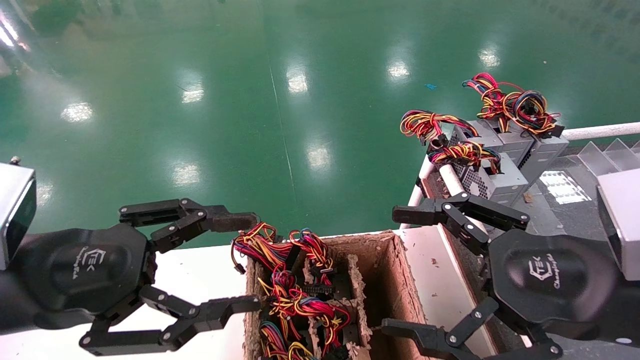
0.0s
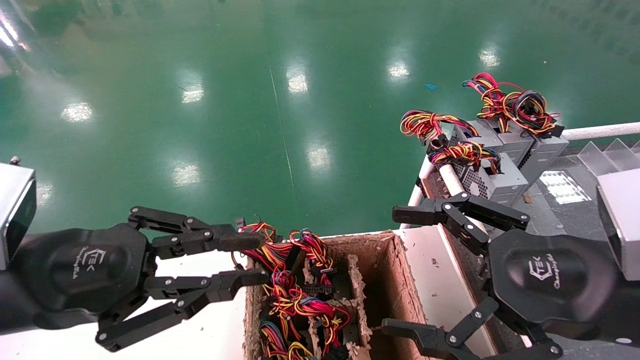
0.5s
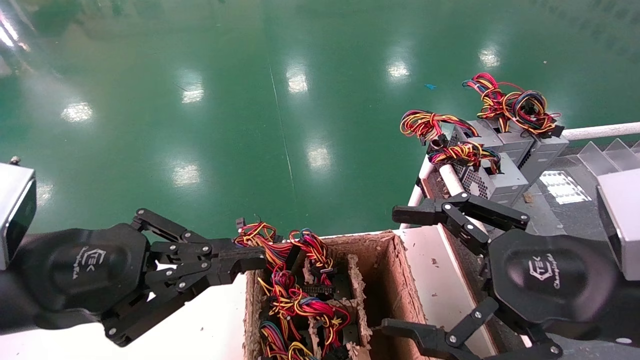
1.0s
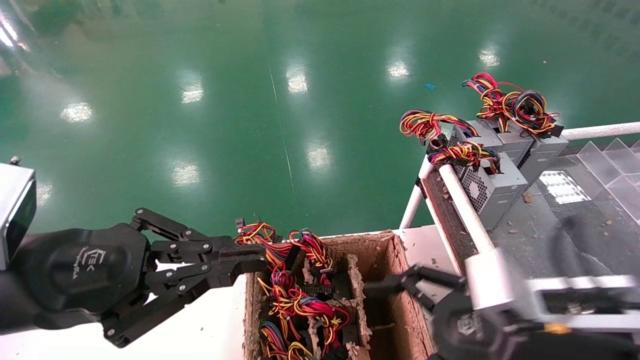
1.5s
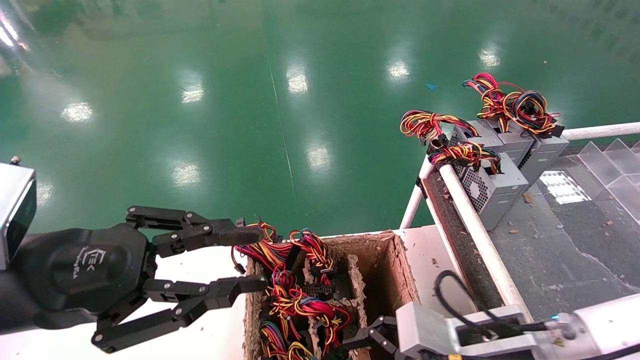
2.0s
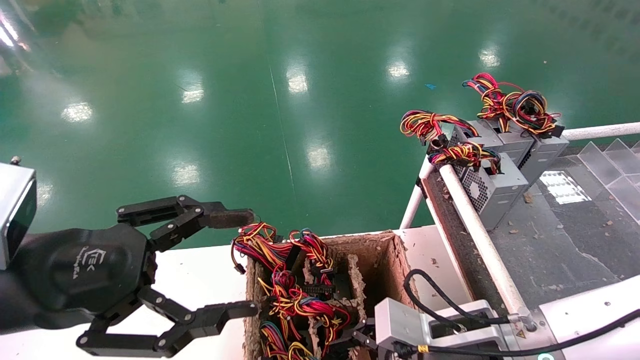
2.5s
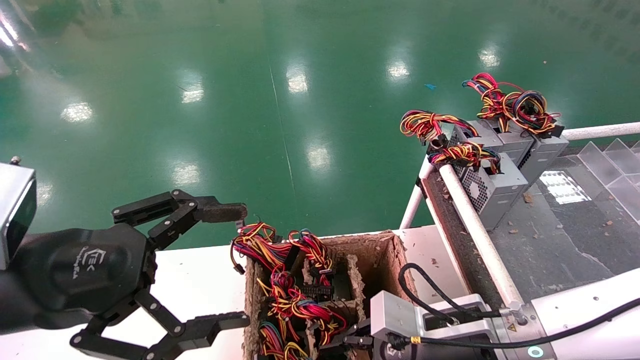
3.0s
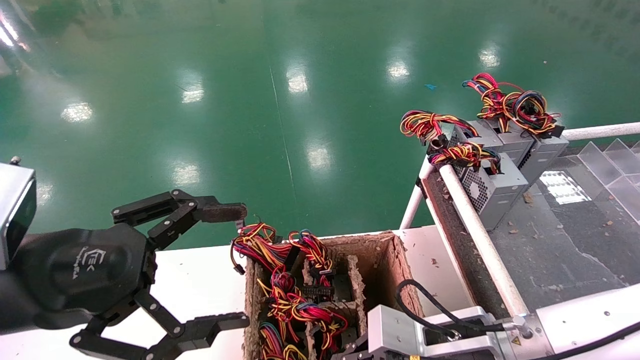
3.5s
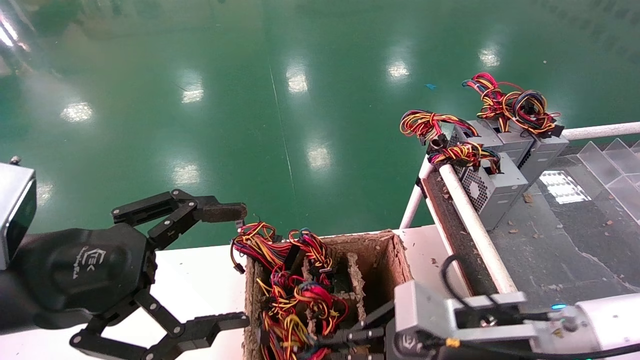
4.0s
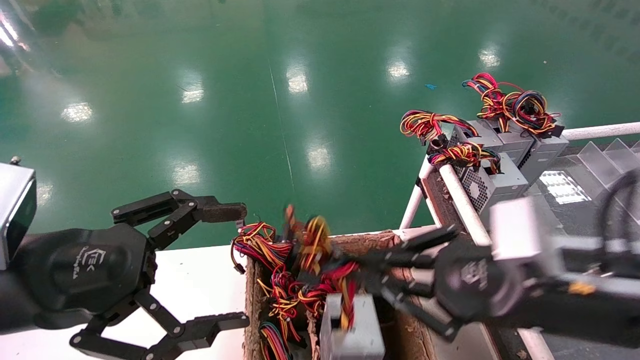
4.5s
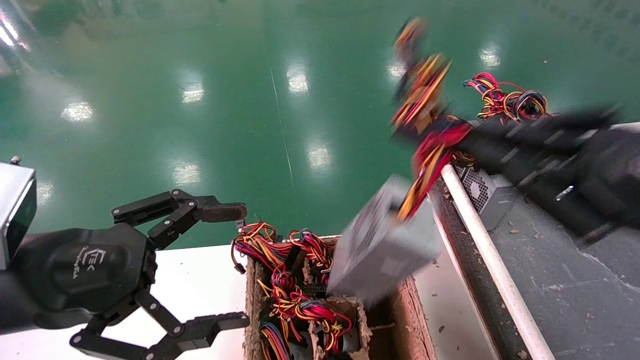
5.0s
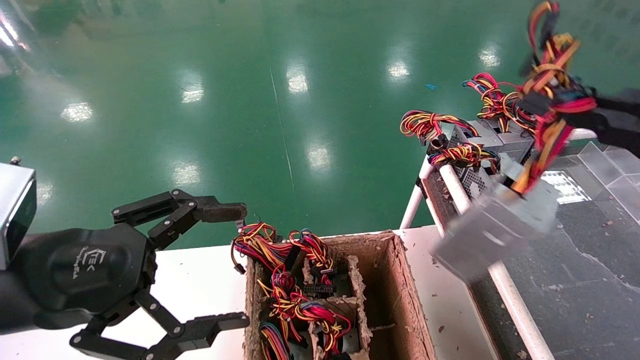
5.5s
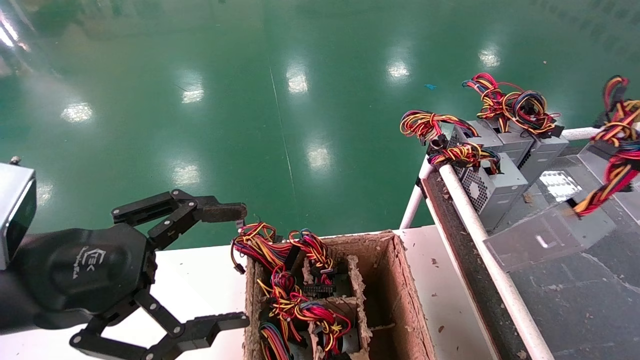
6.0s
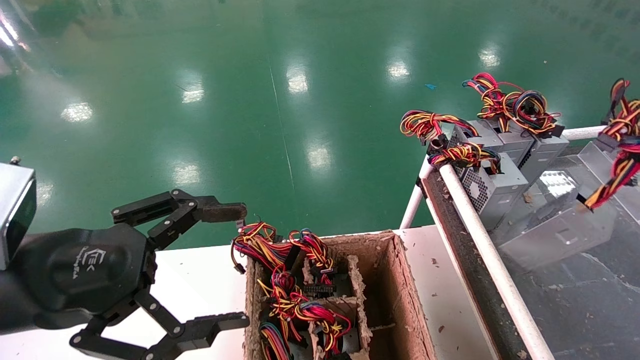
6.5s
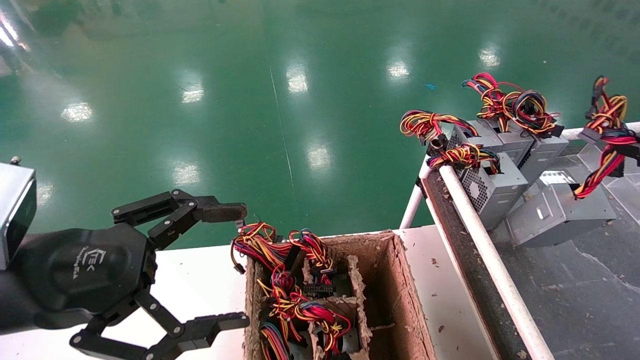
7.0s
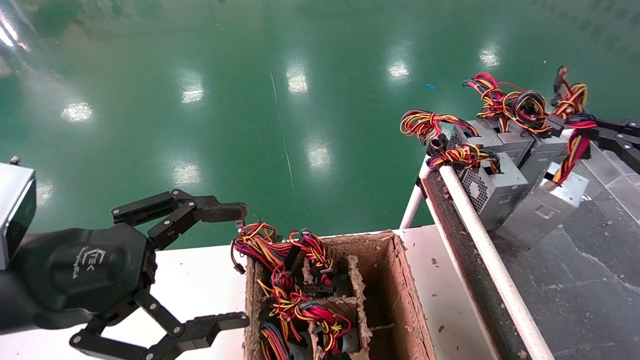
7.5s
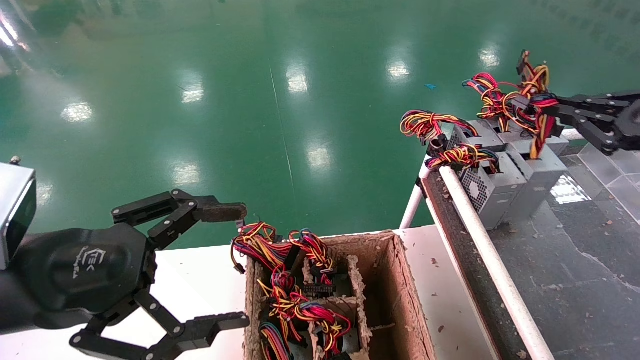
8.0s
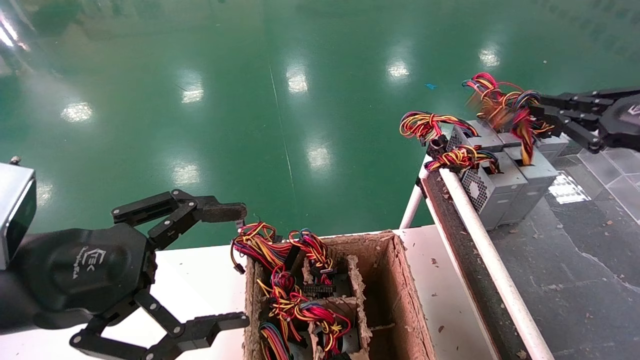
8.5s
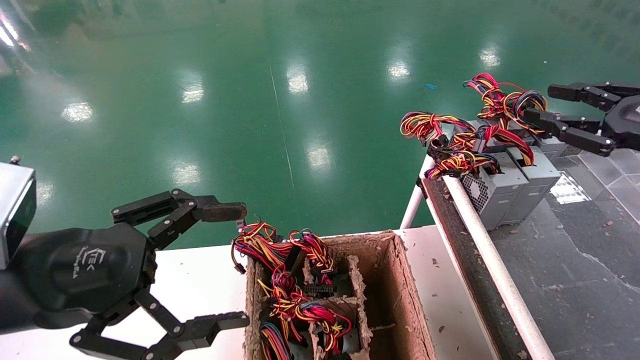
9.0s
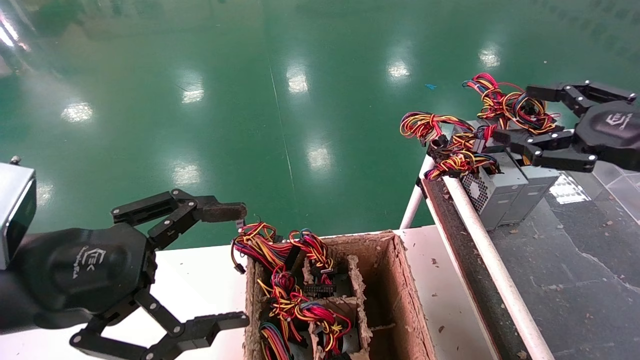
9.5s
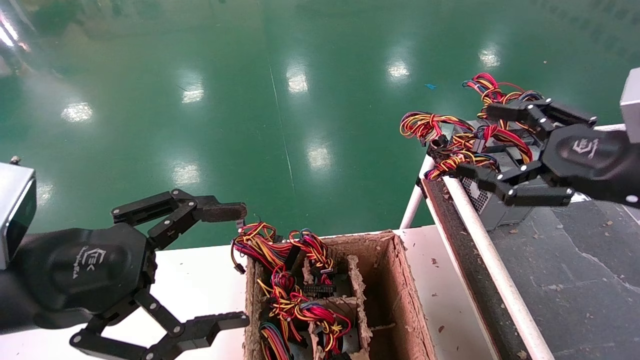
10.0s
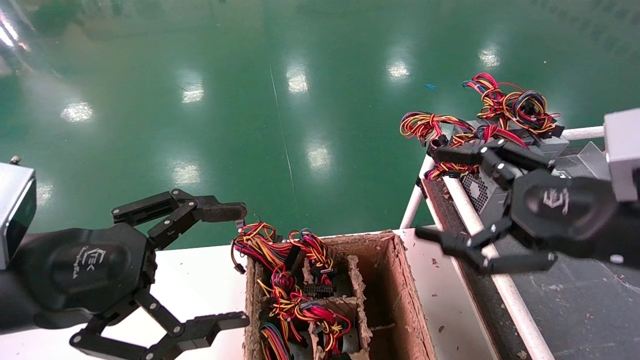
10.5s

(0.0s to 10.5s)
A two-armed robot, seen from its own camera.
Step, 1.5s - 3.0s: Grab and lift the power supply from the large box.
Step, 3.5s - 8.5s: Place the power supply on the operating table.
0.0s - 2.0s: The left gripper closes its fingers. The right gripper travels downward, forward and to the left by roughly 15 cm.
2.0s - 4.0s: The left gripper opens its fingers; the right gripper closes up.
4.0s - 6.5s: The right gripper shifts roughly 30 cm to the right and upward.
6.5s - 8.5s: The right gripper goes roughly 15 cm forward and upward.
8.5s - 10.5s: The right gripper moves to the left and backward, some 15 cm, and opens.

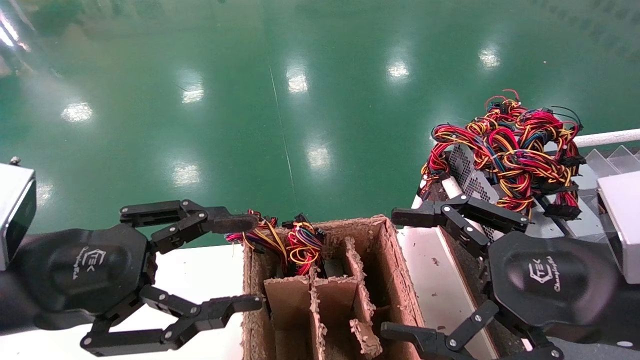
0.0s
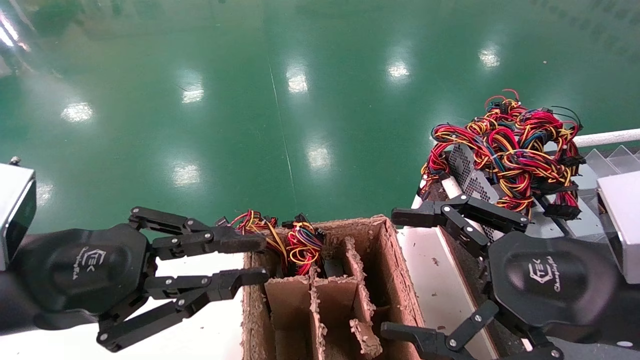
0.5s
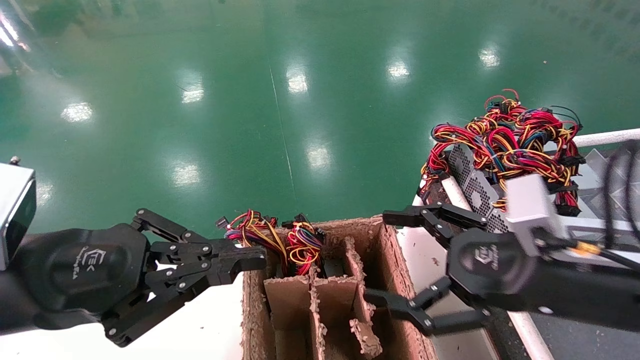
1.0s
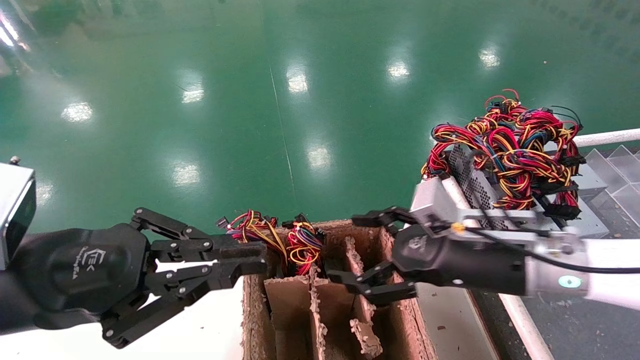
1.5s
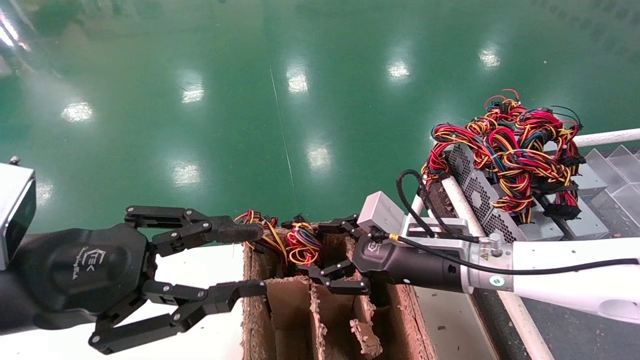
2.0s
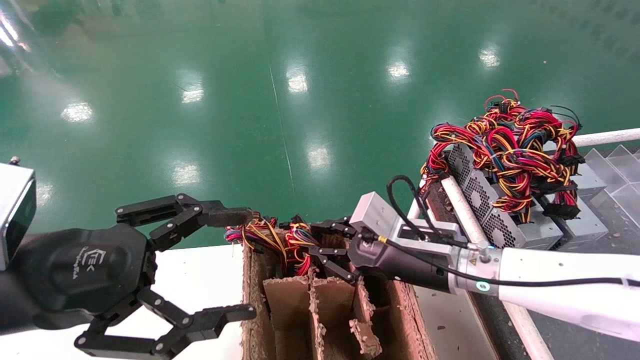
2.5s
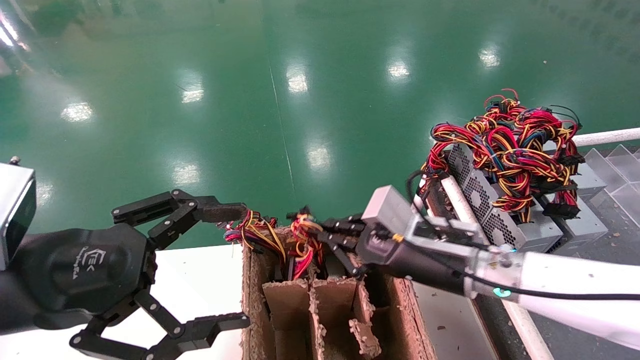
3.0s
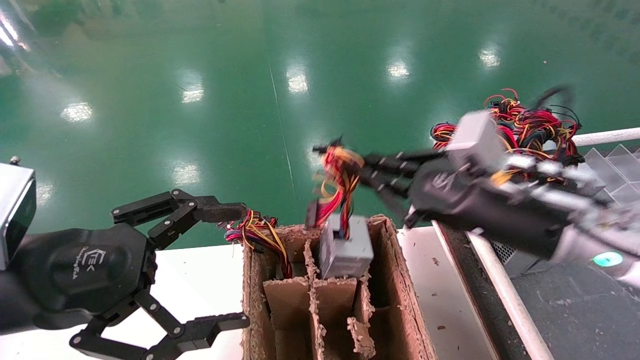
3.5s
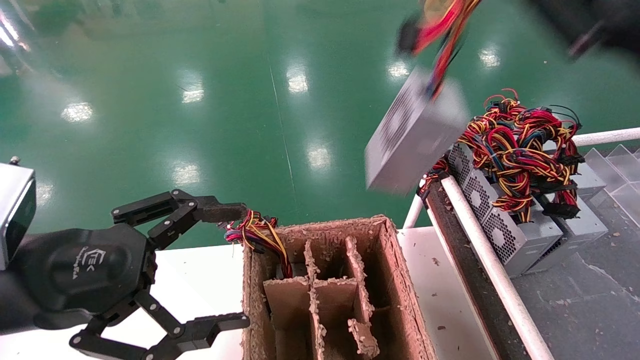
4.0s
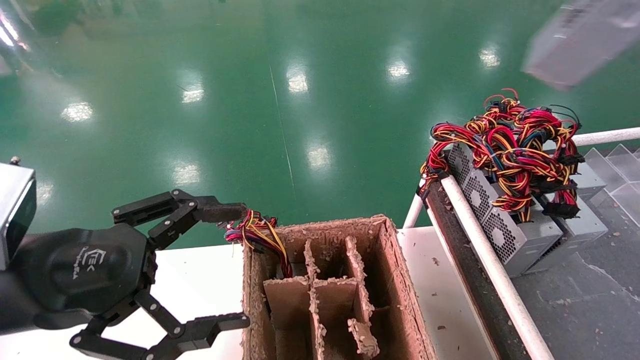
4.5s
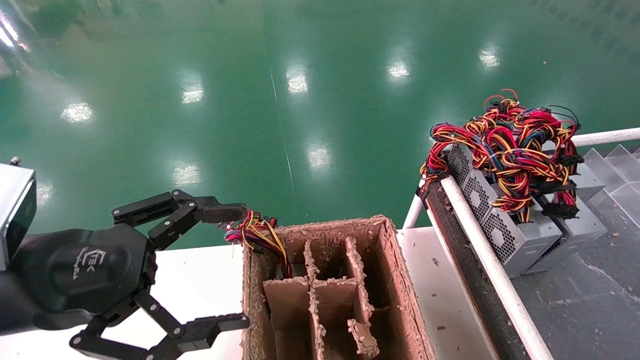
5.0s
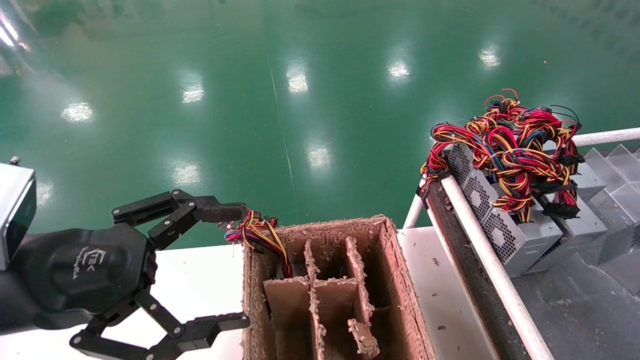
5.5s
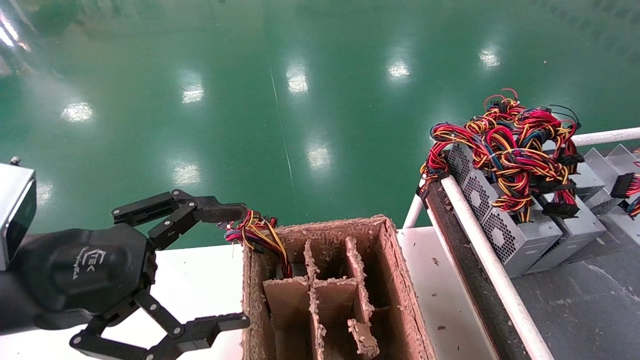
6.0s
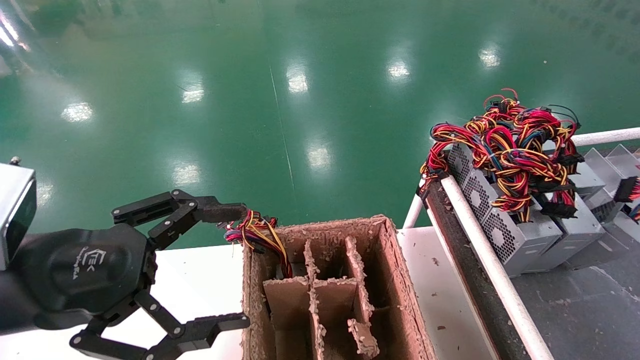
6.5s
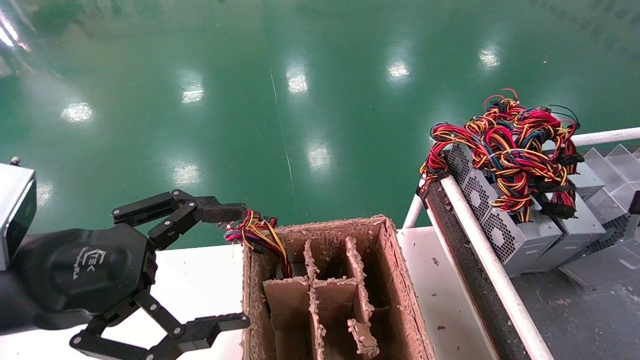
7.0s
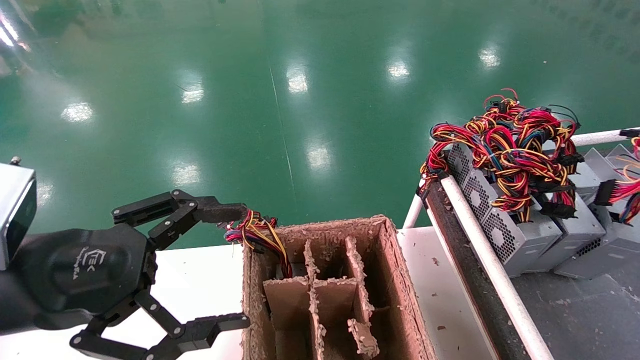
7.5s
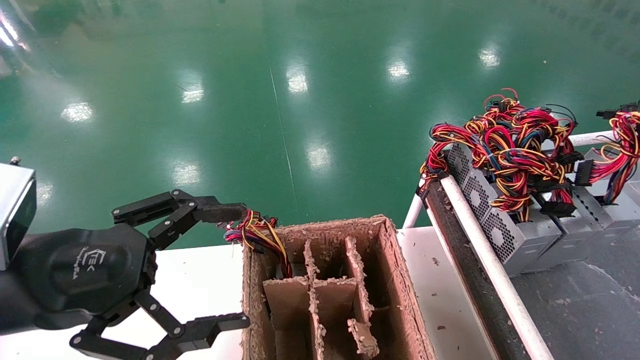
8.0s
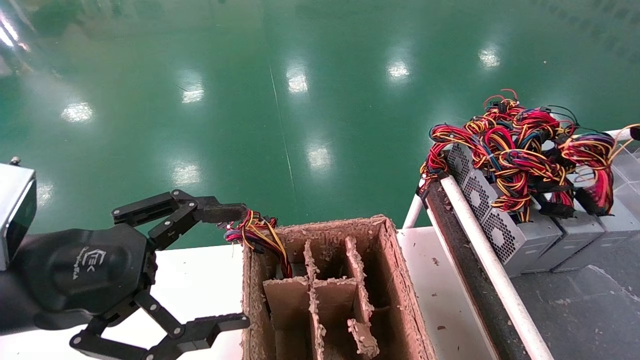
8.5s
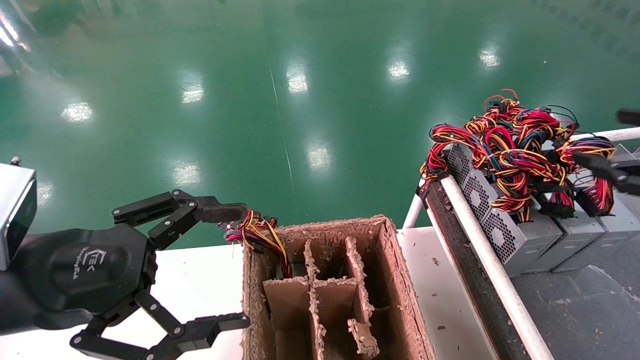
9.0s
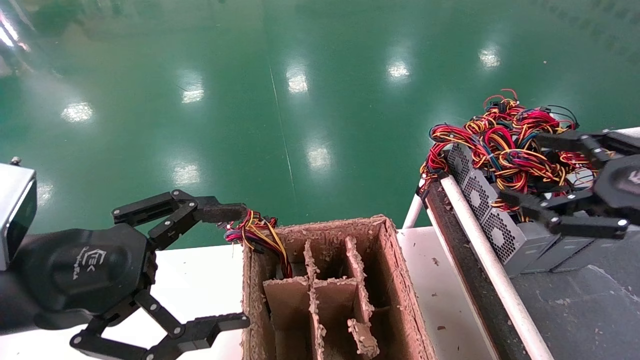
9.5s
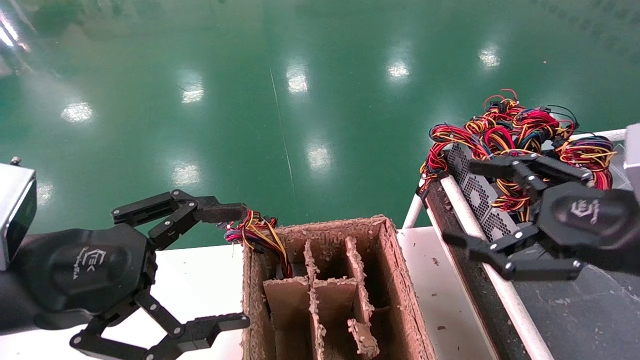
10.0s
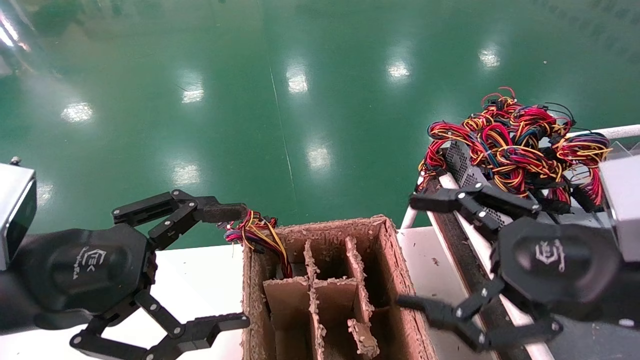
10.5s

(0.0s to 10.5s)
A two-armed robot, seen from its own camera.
Step, 1.0s - 2.5s: Grab and lift the power supply from the large box.
Step, 3.0s - 8.0s: Place the power supply on the operating table.
0.0s - 2.0s: The left gripper closes up, while the right gripper travels forward, to the left and downward by approximately 20 cm.
2.0s - 4.0s: The left gripper opens up. The right gripper travels upward, to the right and backward by approximately 30 cm, and closes up.
4.0s - 6.5s: The right gripper goes some 20 cm to the right and downward.
6.5s - 8.5s: There are only small adjustments of the grippers.
8.5s - 10.5s: The right gripper shifts roughly 20 cm to the left, and opens.
